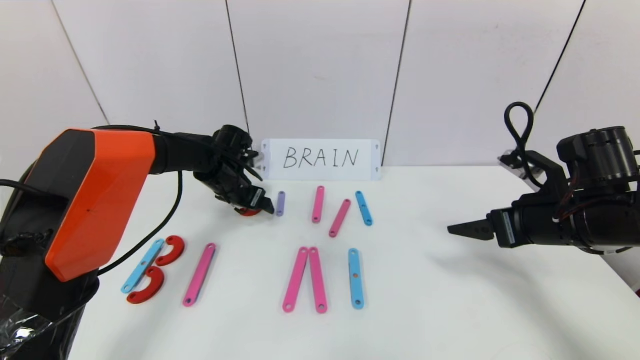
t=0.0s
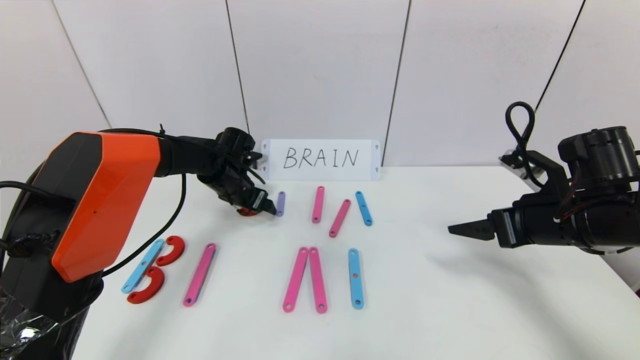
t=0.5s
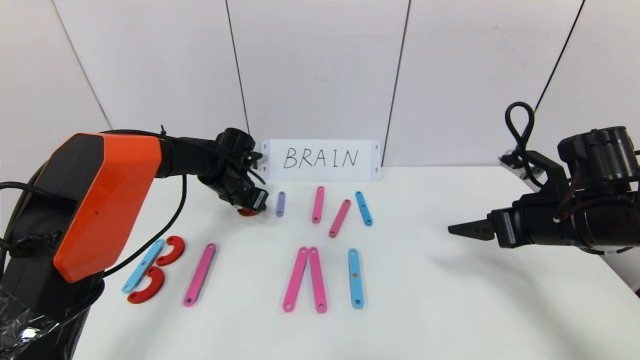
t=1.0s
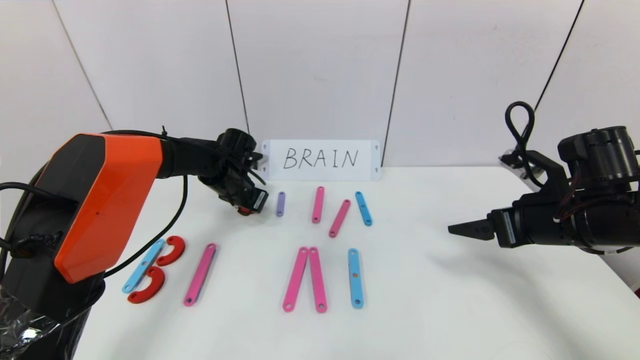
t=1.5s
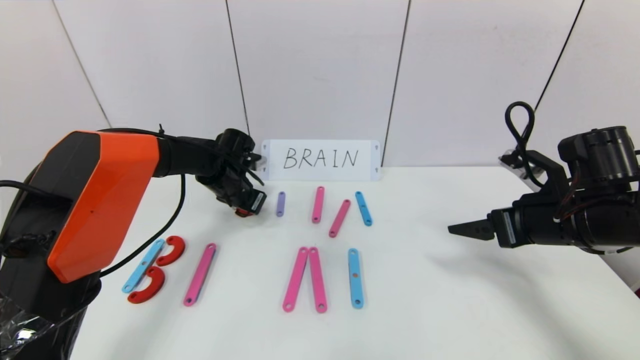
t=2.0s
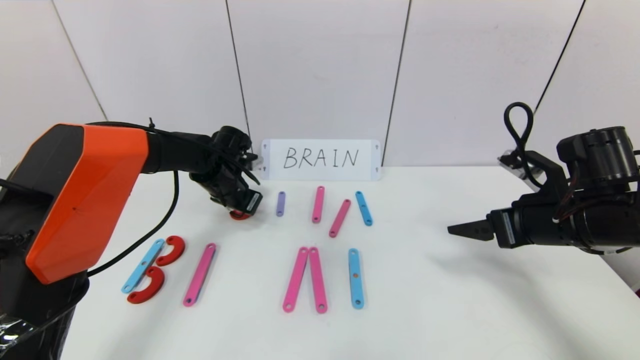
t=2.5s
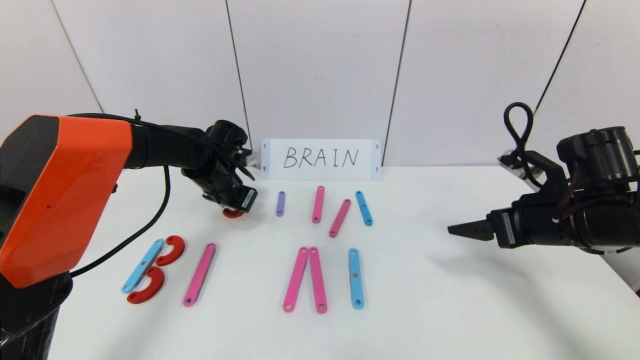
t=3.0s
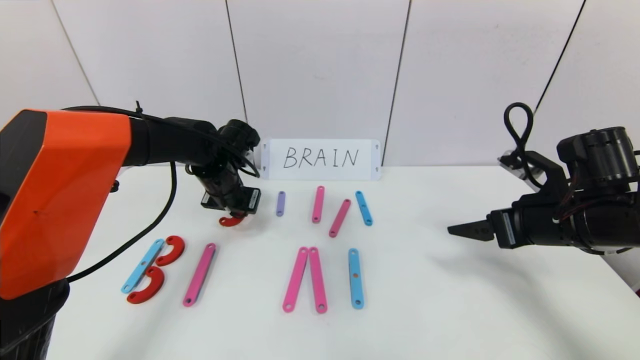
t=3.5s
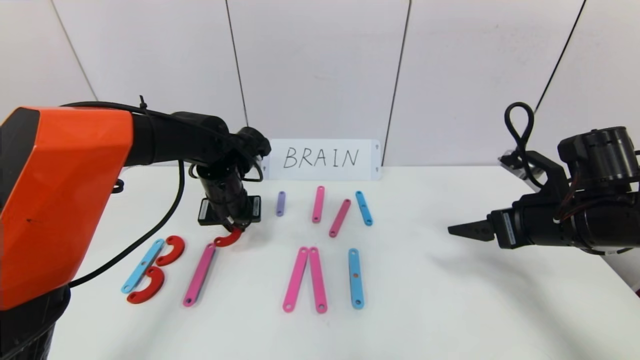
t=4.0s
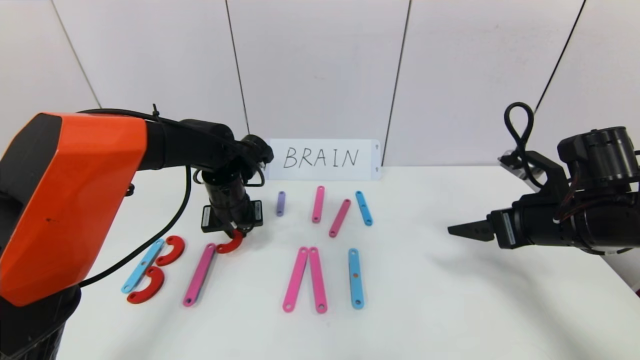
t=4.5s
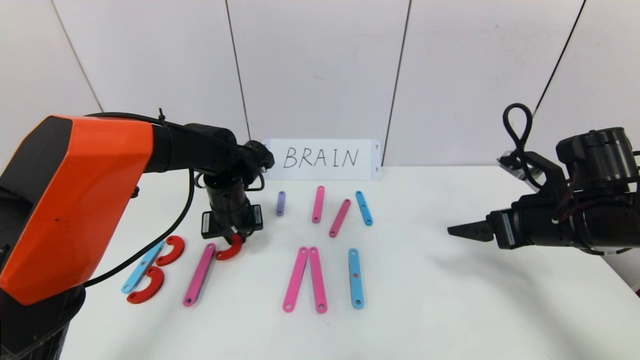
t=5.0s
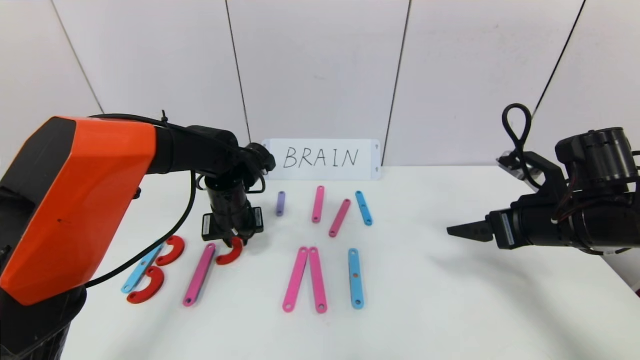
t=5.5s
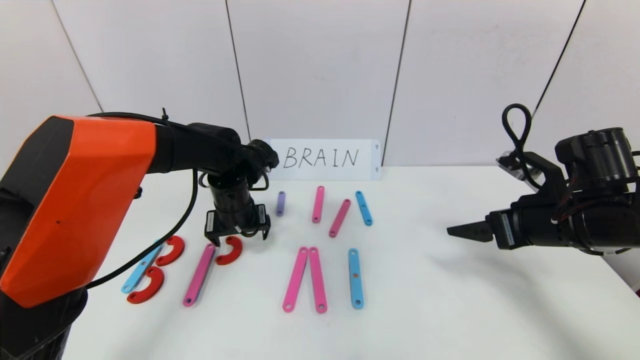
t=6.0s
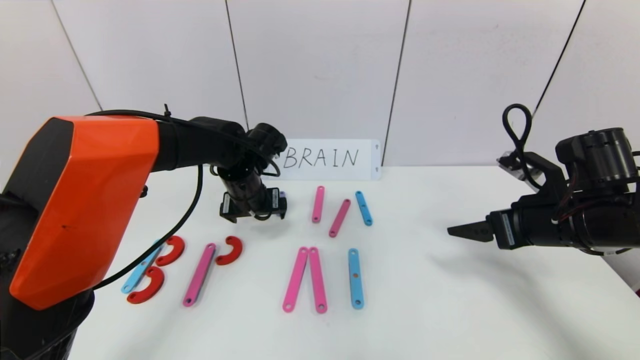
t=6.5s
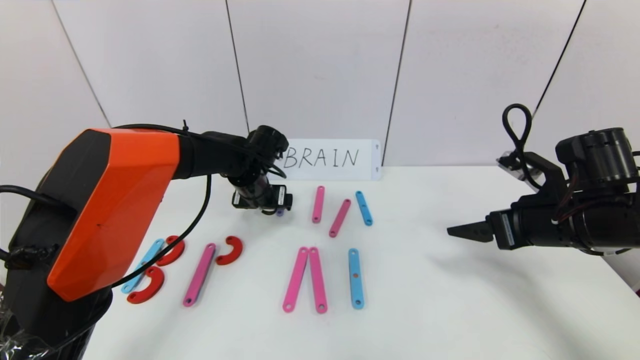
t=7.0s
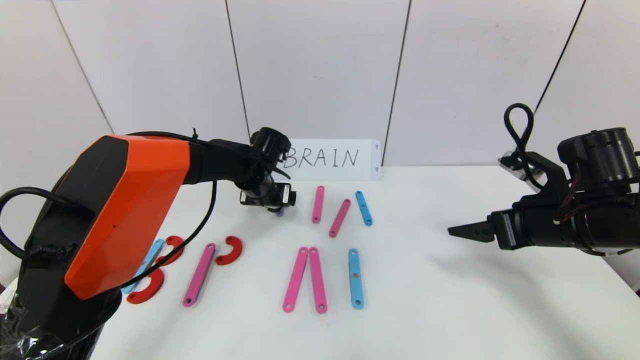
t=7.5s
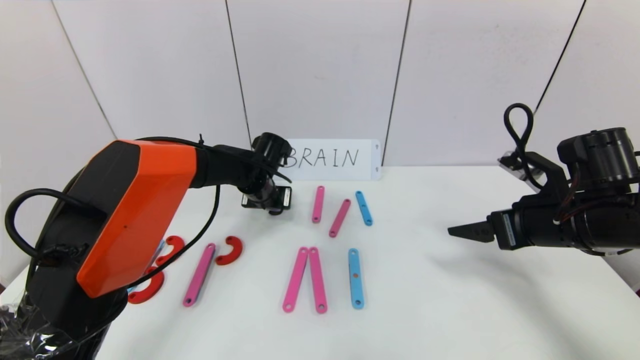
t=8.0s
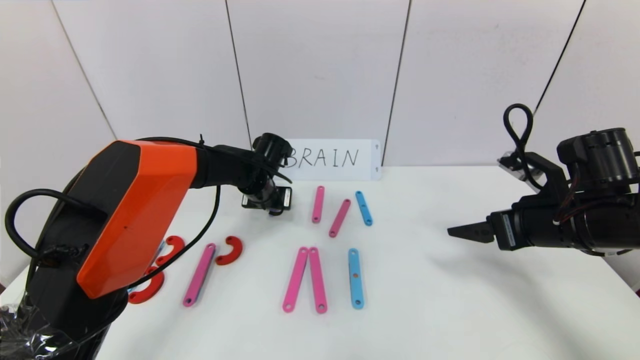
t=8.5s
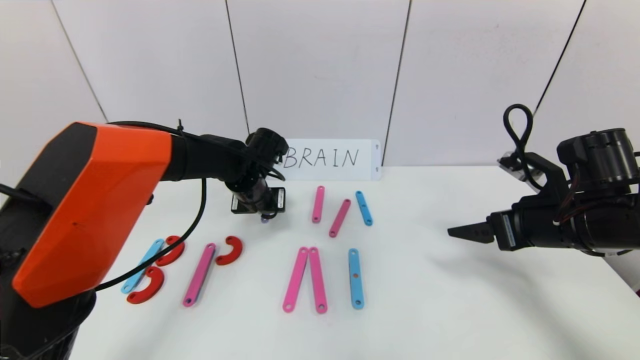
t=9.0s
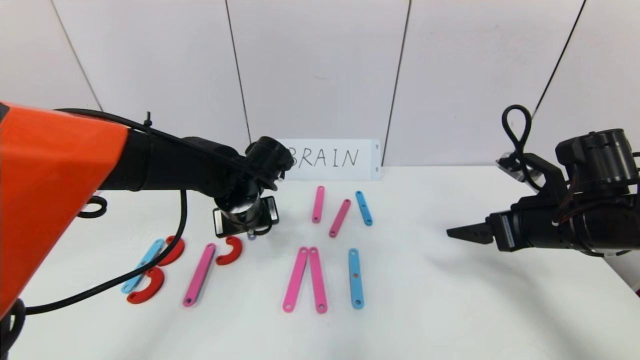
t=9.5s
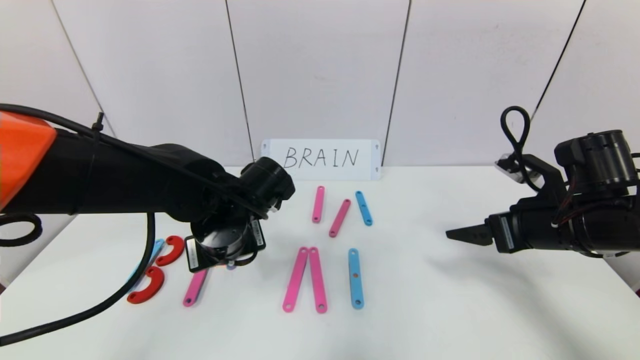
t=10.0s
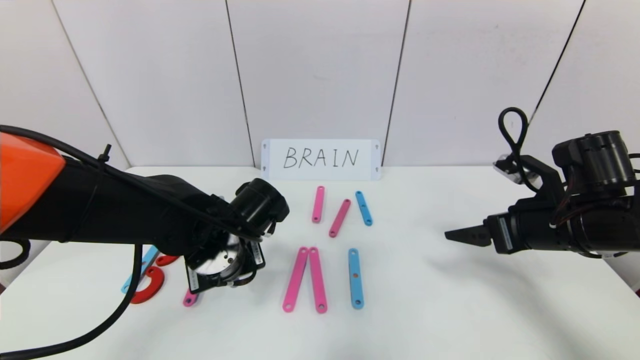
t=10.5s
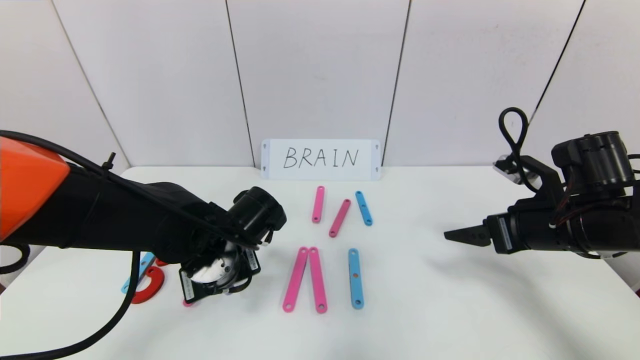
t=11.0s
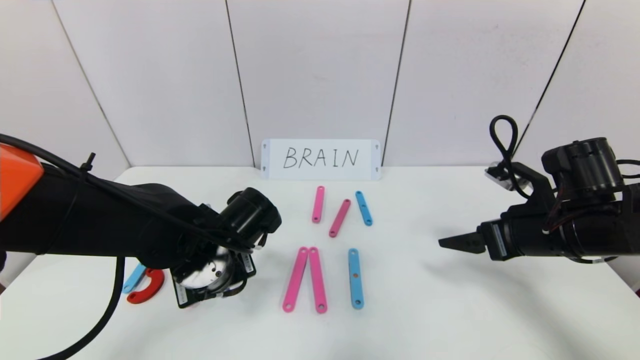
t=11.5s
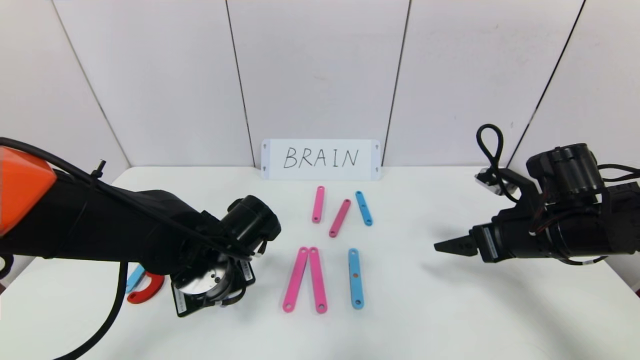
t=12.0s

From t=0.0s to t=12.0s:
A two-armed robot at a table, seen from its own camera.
Task of the whole recording: rearrange the word baai as brain.
From t=0.0s to t=2.0s: The left gripper closes its fingers.
From t=2.0s to t=4.0s: The left gripper is displaced backward by some 10 cm.
From t=4.0s to t=6.0s: The left gripper opens.
From t=6.0s to t=8.0s: The left gripper goes approximately 5 cm forward, and closes its fingers.
From t=8.0s to t=10.0s: The left gripper heads backward, covering approximately 15 cm.

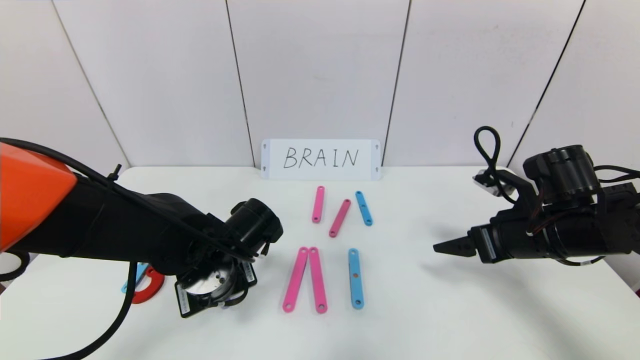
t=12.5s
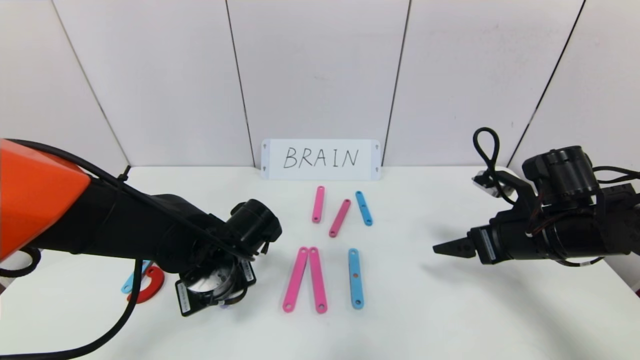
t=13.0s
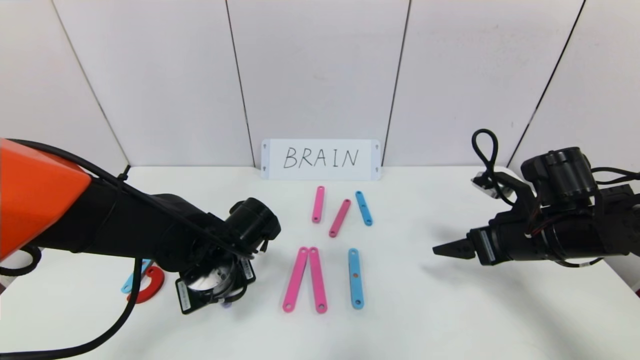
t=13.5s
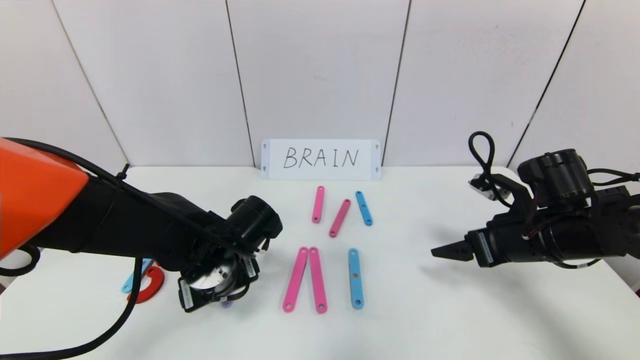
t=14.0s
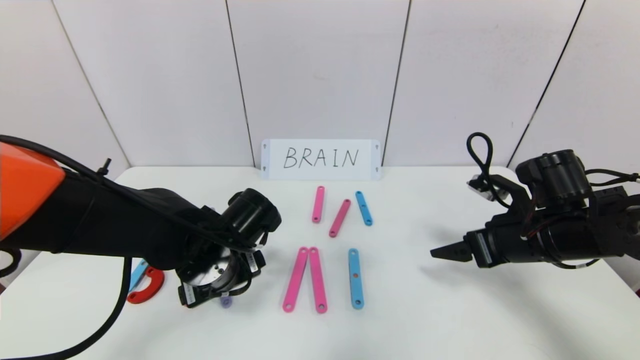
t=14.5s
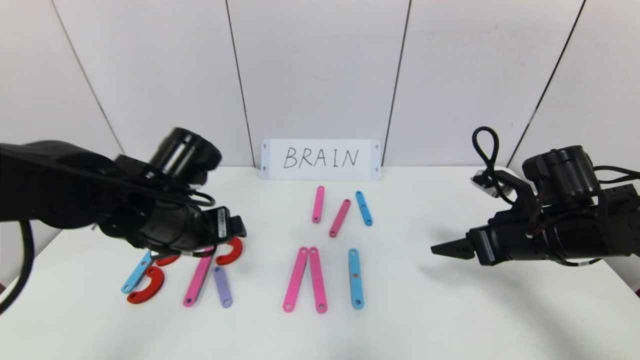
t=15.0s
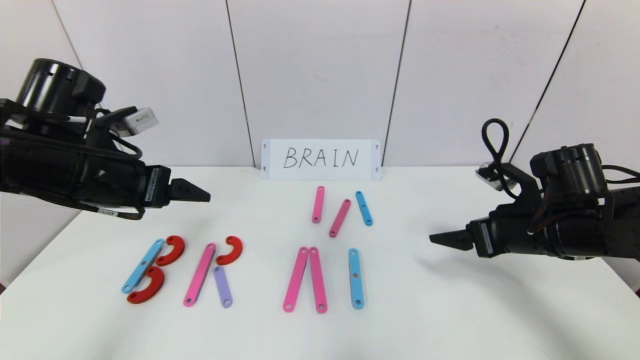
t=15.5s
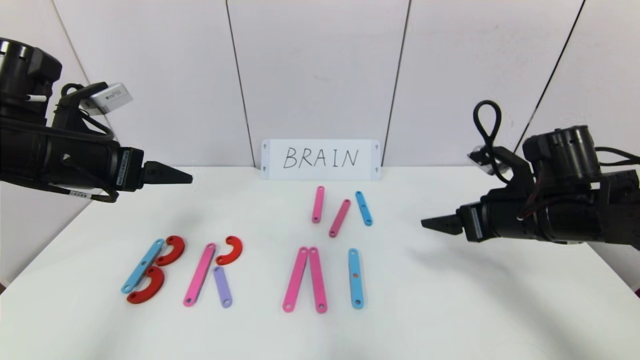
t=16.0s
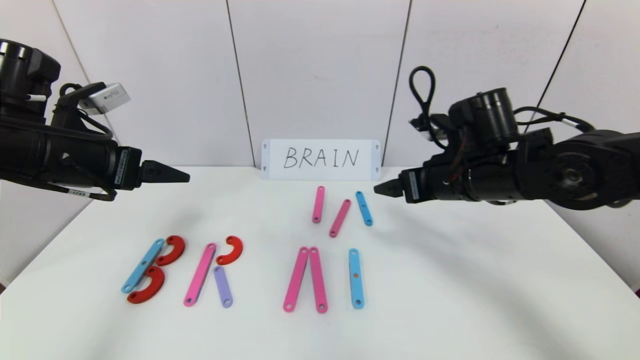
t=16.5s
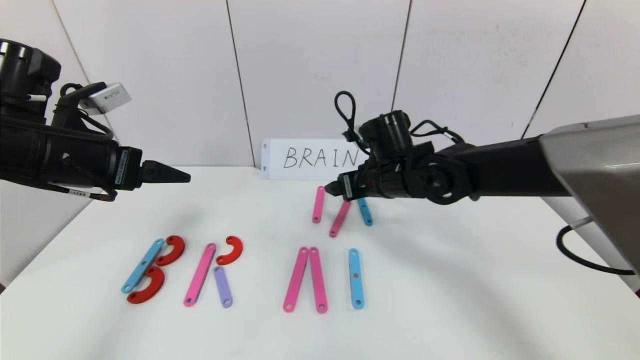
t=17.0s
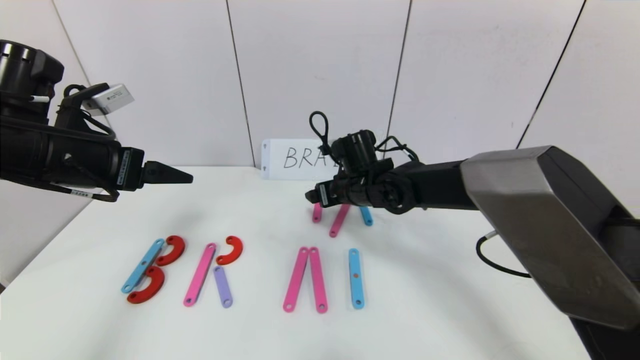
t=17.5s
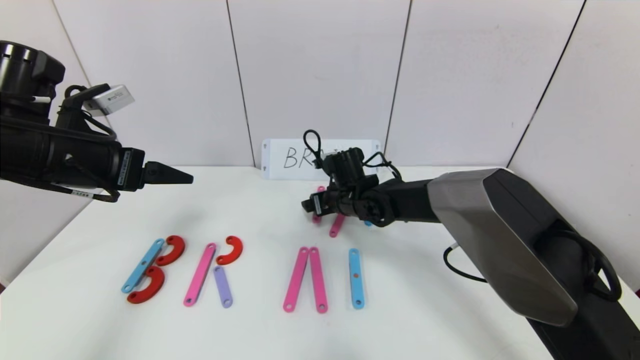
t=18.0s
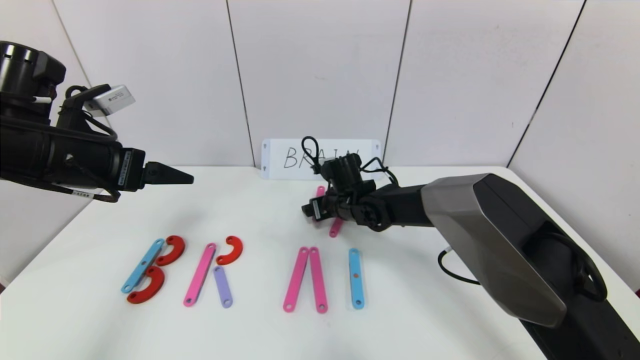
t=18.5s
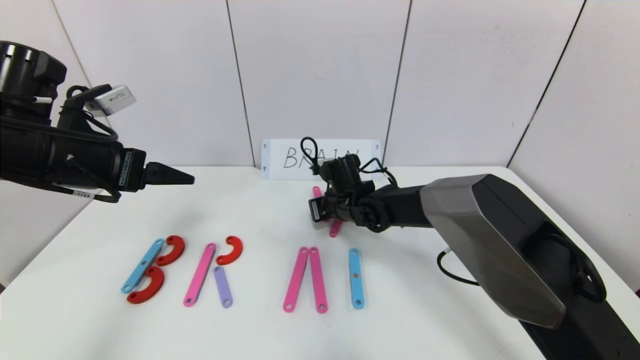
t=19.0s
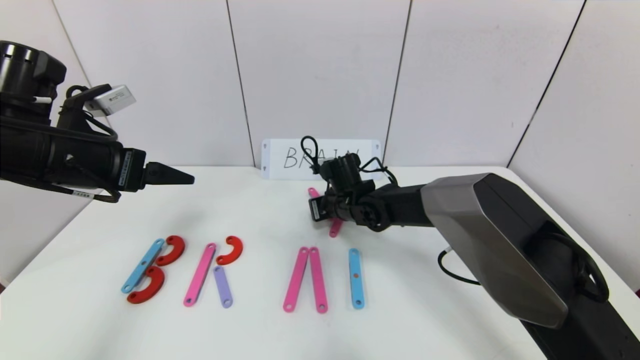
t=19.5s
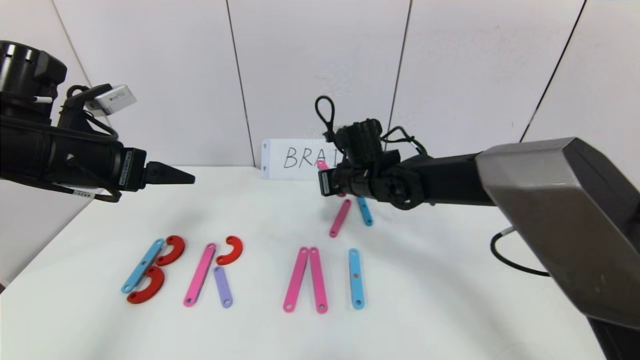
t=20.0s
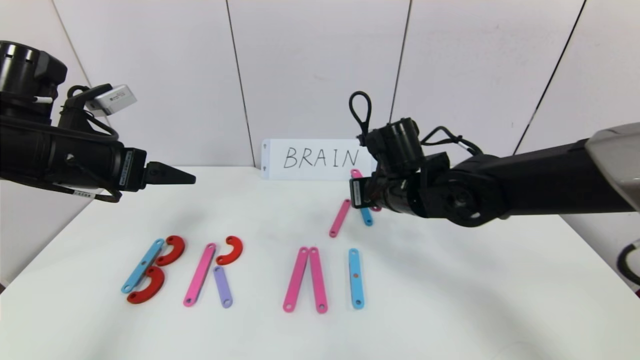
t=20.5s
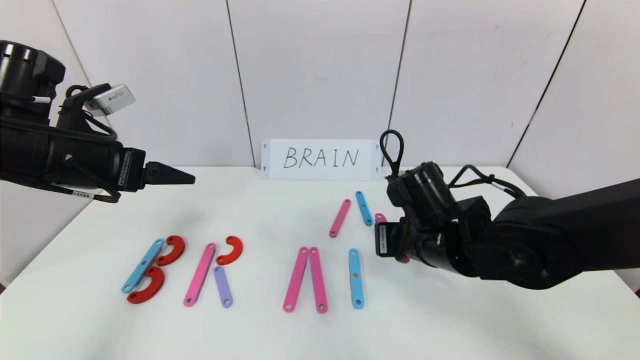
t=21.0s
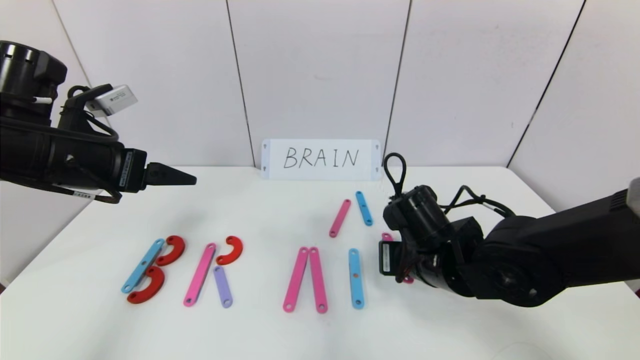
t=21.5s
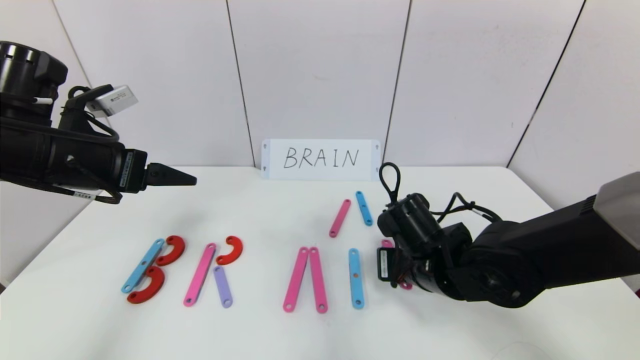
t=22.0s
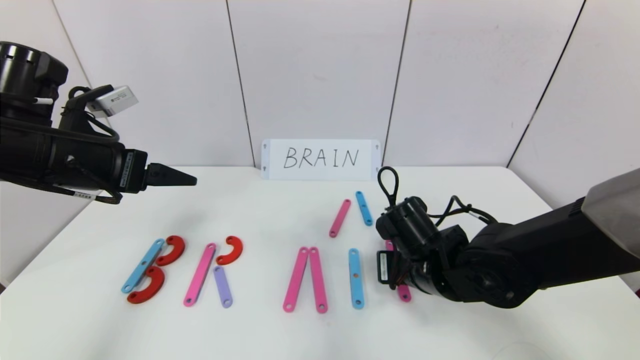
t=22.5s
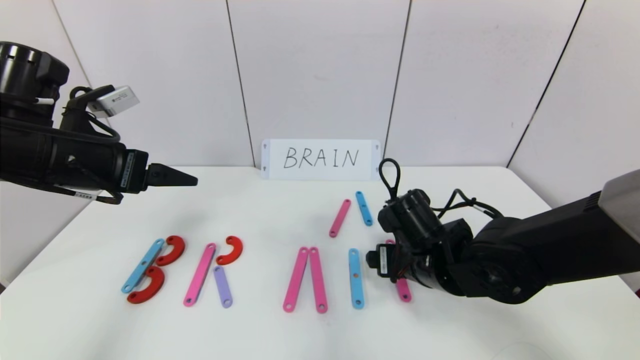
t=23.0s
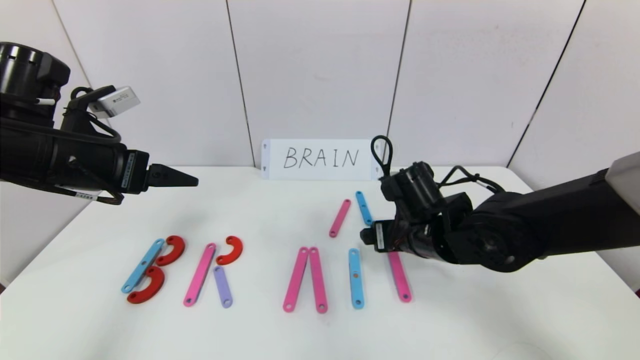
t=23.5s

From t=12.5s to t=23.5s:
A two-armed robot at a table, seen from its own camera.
Task of the whole recording: rearrange the word baai as brain.
From t=12.5s to t=14.5s: The left gripper opens its fingers.
From t=14.5s to t=16.0s: The left gripper shifts about 20 cm to the left and upward.
From t=16.0s to t=18.0s: The right gripper shifts some 30 cm to the left, forward and downward.
From t=18.0s to t=20.0s: The right gripper heads upward, covering some 5 cm, and closes.
From t=20.0s to t=21.5s: The right gripper moves backward and to the right, some 15 cm.
From t=21.5s to t=23.5s: The right gripper opens.
